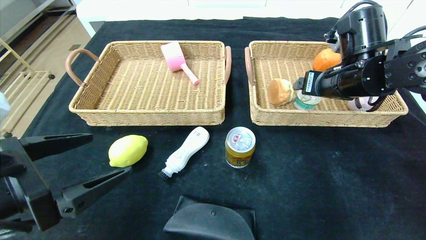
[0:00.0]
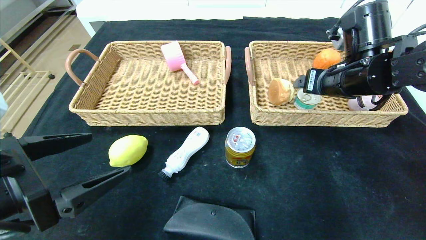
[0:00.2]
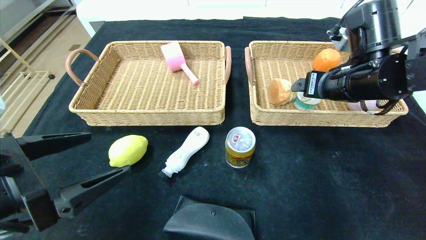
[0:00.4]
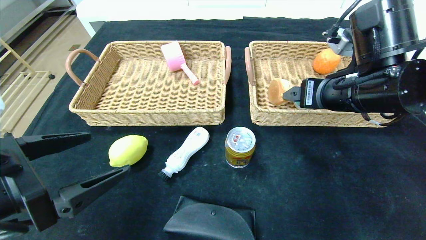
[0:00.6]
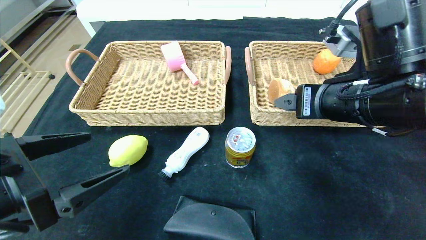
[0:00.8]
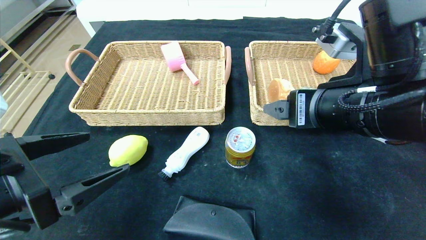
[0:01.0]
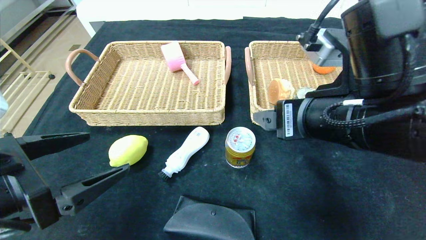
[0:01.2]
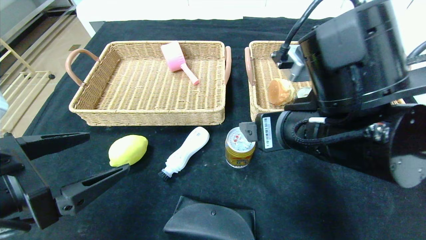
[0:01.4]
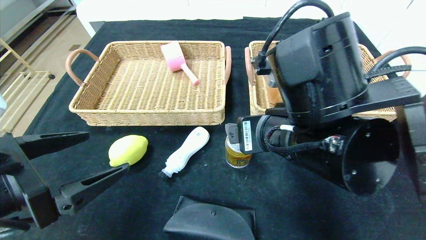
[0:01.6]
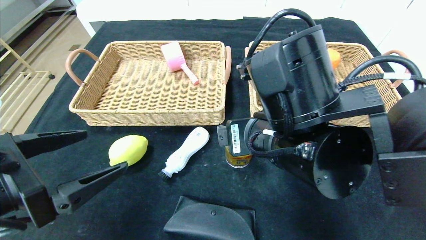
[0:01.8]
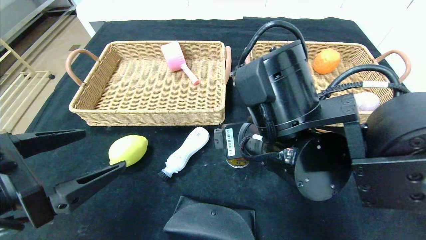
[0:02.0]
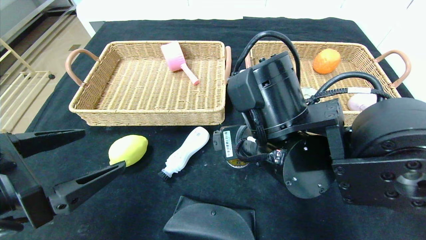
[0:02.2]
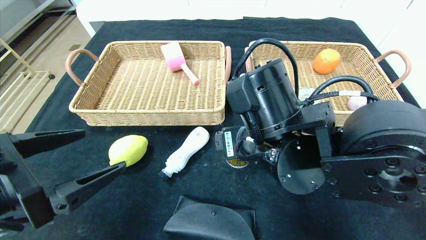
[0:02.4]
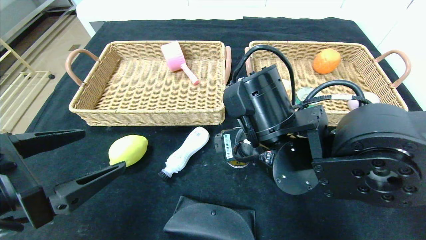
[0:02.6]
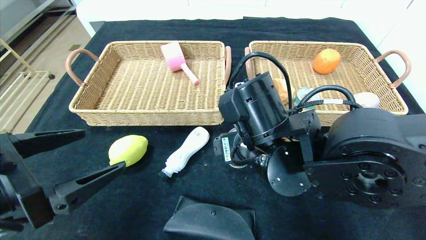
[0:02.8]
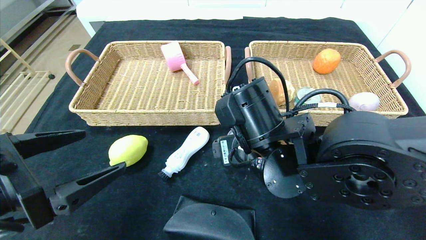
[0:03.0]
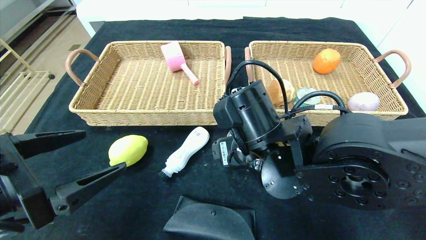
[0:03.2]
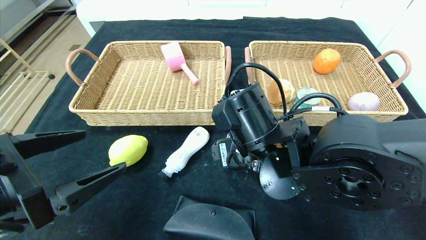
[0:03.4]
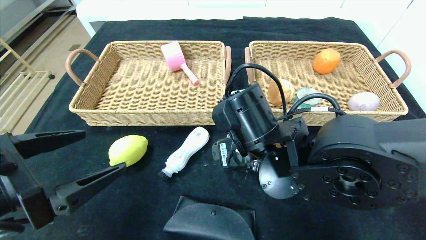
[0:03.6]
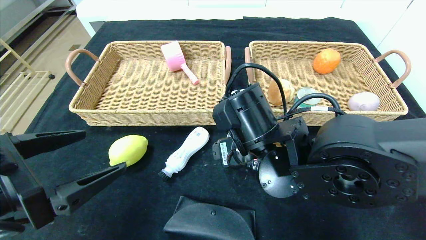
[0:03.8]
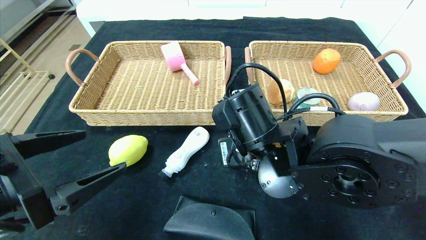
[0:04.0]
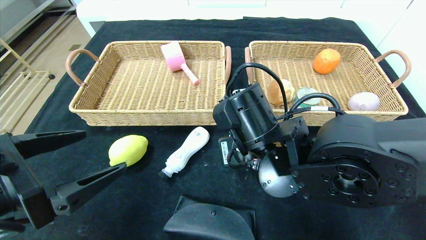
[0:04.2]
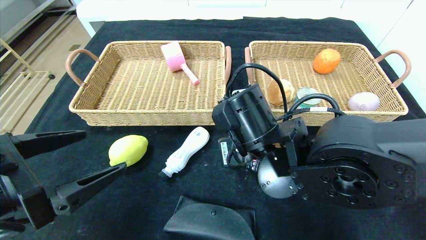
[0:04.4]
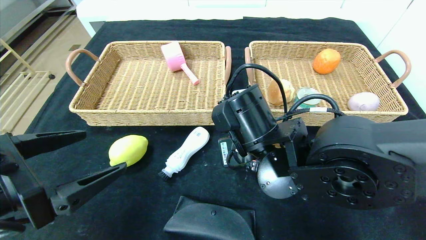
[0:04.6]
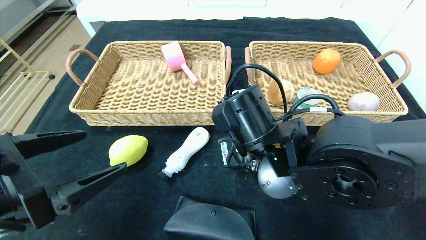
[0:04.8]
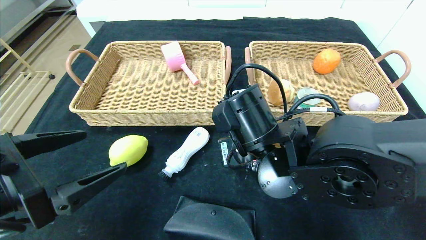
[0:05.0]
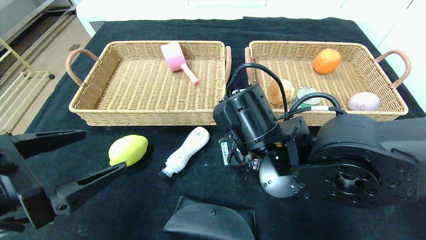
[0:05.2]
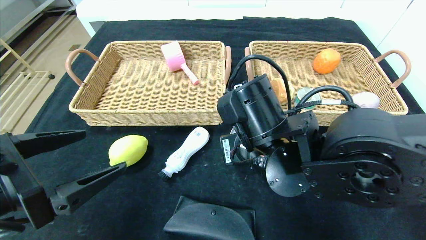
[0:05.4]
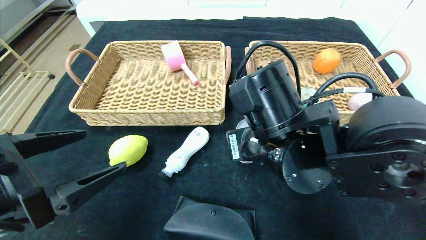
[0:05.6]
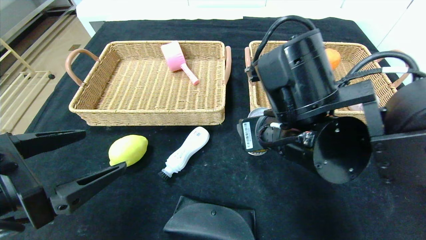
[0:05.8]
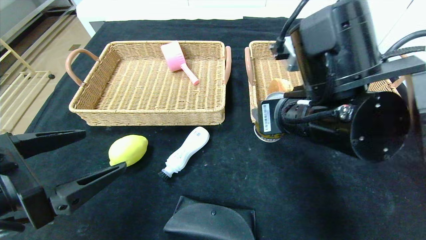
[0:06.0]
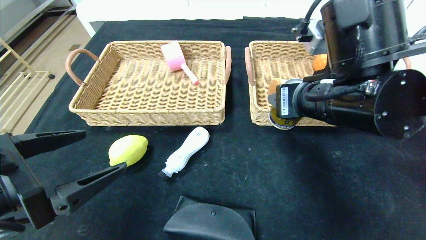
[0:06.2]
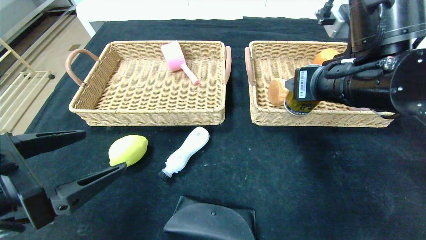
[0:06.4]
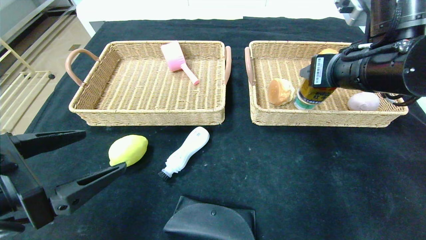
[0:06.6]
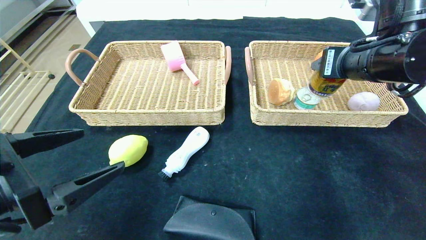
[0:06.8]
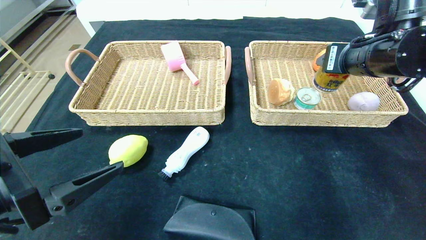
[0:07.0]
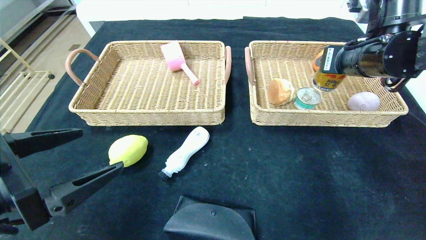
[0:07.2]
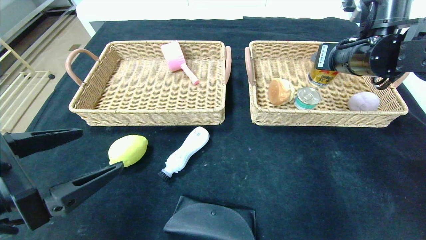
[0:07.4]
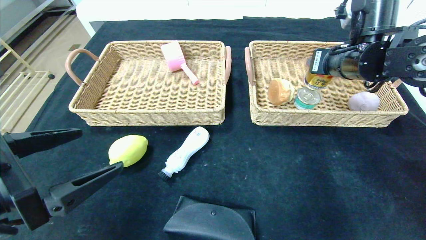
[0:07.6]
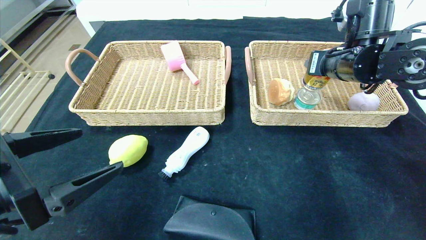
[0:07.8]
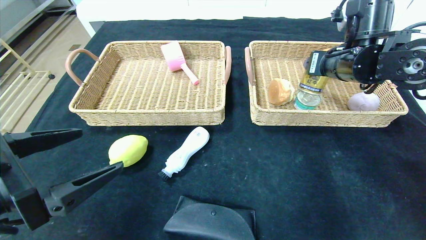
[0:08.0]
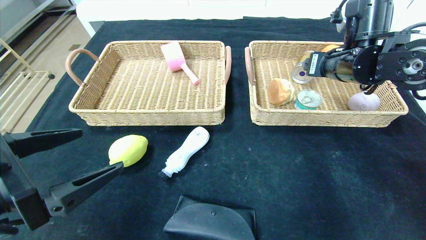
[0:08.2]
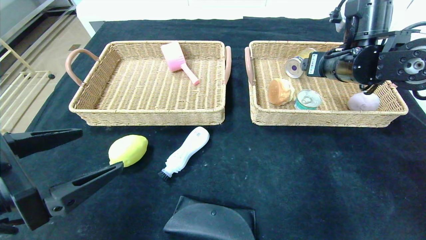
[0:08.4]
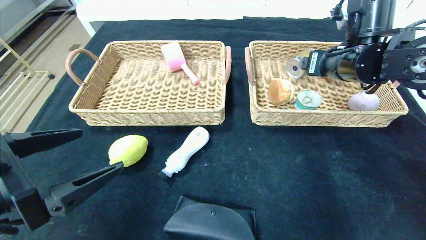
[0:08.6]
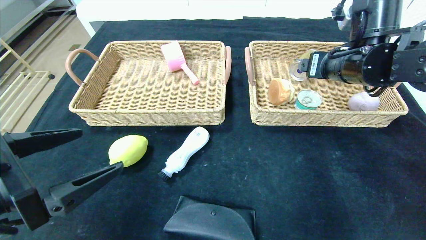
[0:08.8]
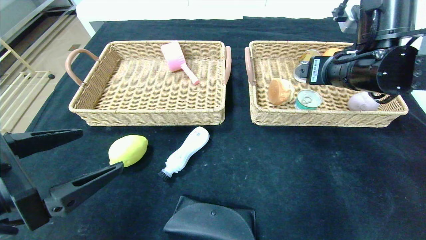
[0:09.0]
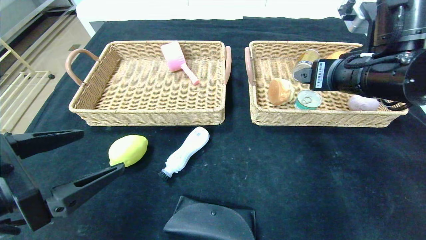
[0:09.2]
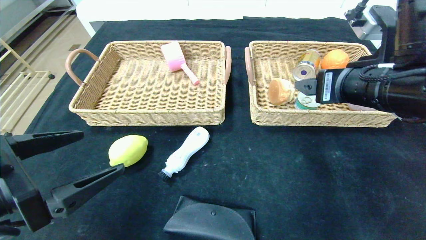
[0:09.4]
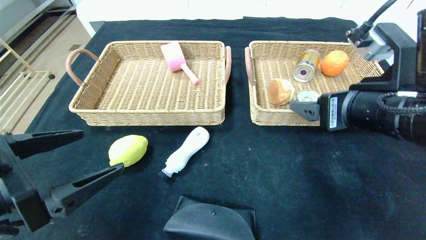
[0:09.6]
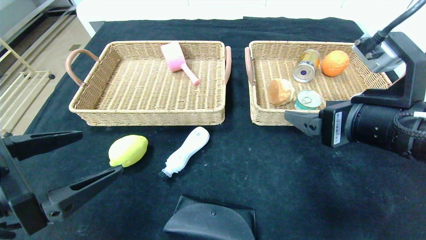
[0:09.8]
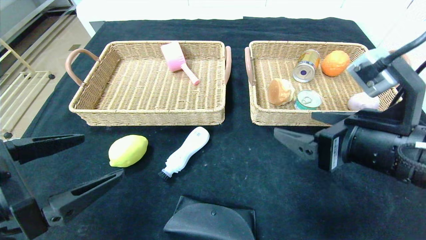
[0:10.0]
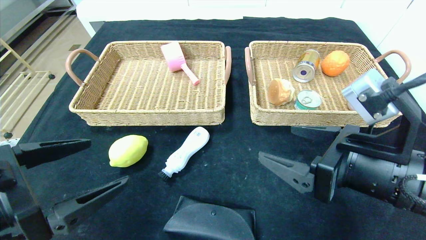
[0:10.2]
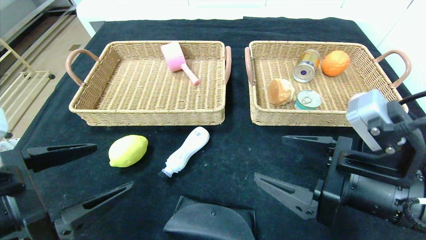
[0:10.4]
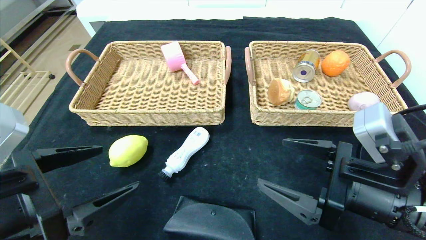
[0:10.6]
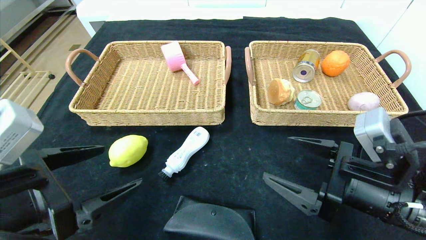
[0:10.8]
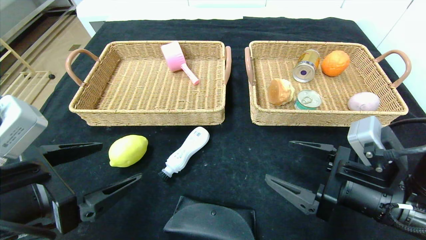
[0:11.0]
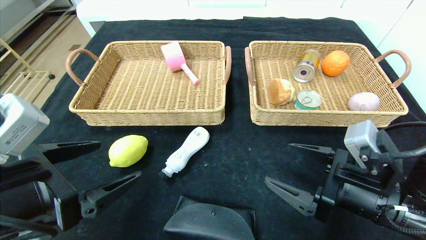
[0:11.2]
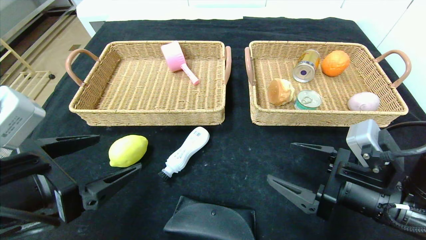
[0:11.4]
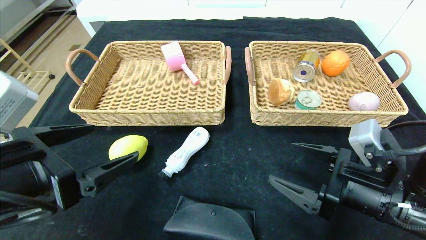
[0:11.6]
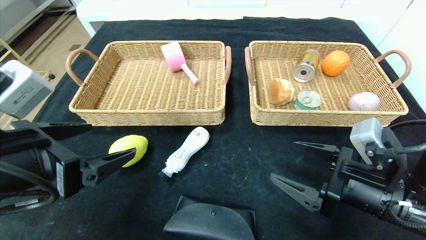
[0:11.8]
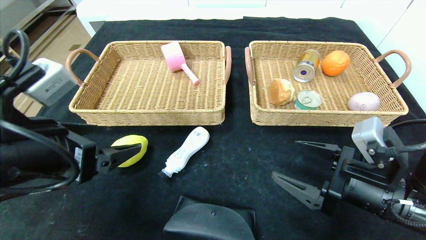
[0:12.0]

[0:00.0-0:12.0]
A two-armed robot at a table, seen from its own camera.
Step, 0:00.0 to 0:08.2: Grasp the Red Bull and put it in the right basket.
0:00.0 to 0:01.6: The right gripper goes about 20 cm backward and to the left.
0:01.6 to 0:03.0: The right gripper changes place by roughly 5 cm.
0:03.0 to 0:04.4: The right gripper closes up.
0:04.4 to 0:06.0: The right gripper shifts roughly 10 cm upward and to the right.
0:06.0 to 0:07.6: The right gripper moves forward and to the right, roughly 20 cm.
0:07.6 to 0:09.0: The right gripper goes roughly 5 cm backward, and opens its fingers.
0:09.0 to 0:10.4: The right gripper is displaced backward and downward by approximately 15 cm.
0:10.4 to 0:12.0: The right gripper changes place by roughly 5 cm; the left gripper moves forward, roughly 5 cm.

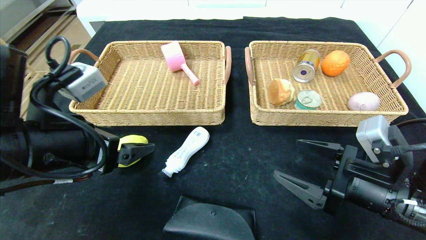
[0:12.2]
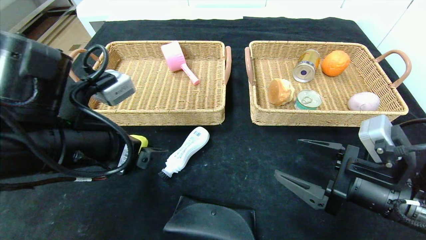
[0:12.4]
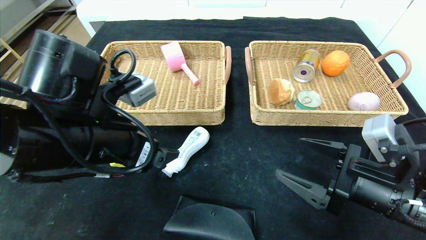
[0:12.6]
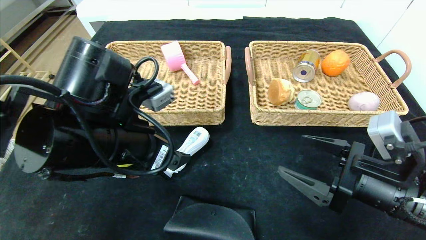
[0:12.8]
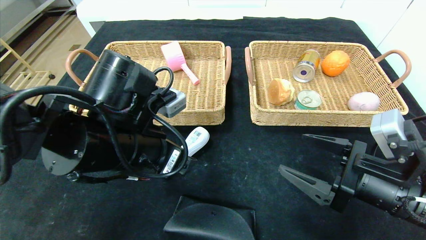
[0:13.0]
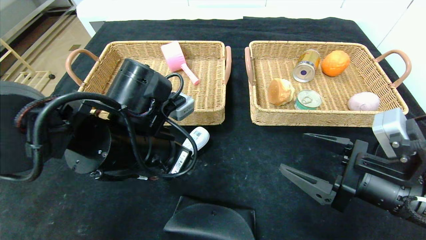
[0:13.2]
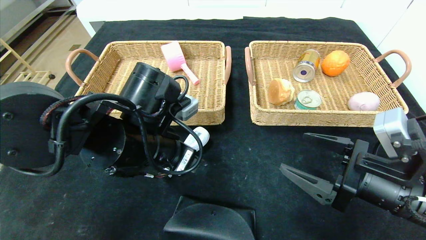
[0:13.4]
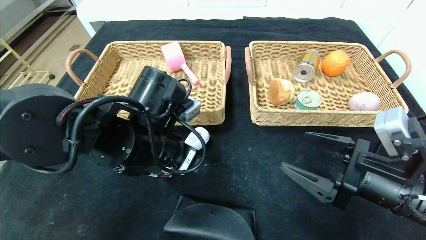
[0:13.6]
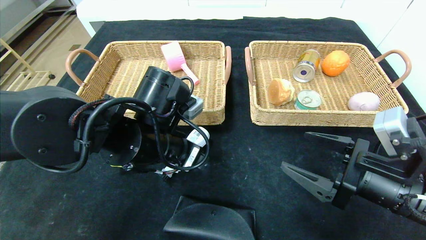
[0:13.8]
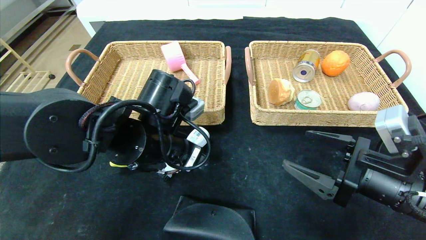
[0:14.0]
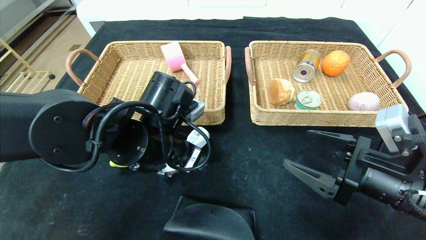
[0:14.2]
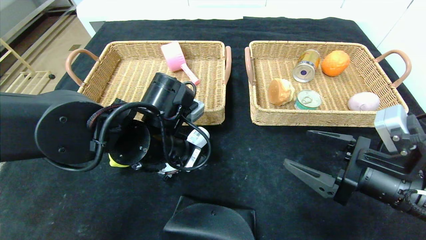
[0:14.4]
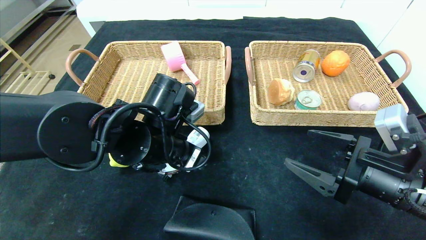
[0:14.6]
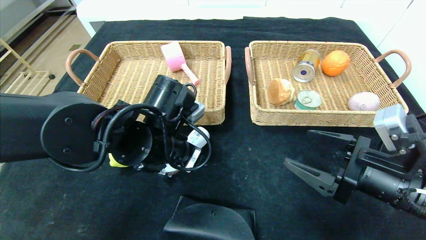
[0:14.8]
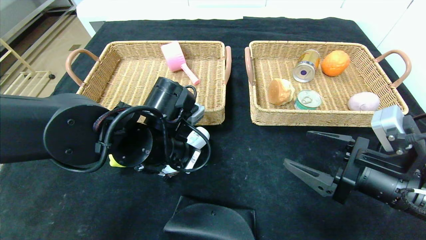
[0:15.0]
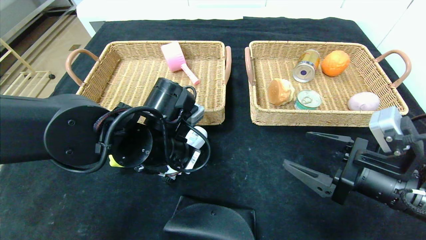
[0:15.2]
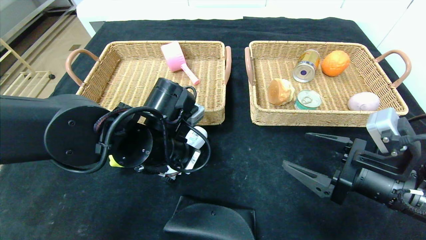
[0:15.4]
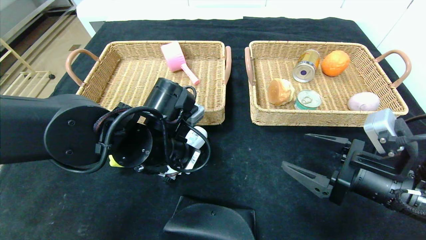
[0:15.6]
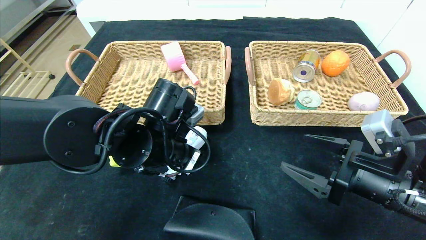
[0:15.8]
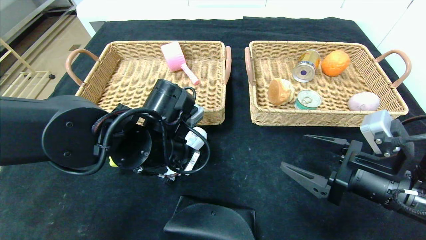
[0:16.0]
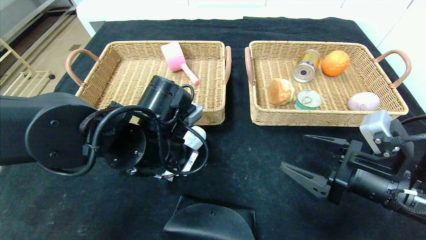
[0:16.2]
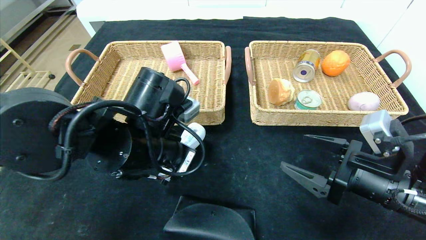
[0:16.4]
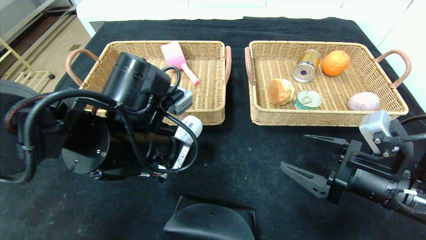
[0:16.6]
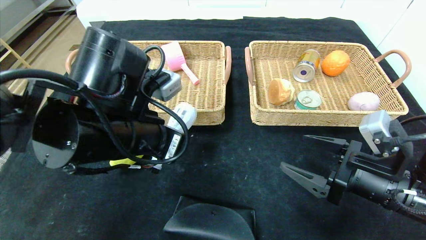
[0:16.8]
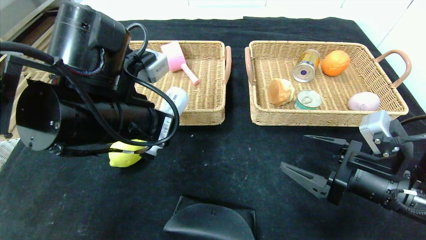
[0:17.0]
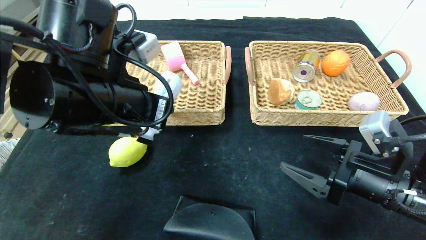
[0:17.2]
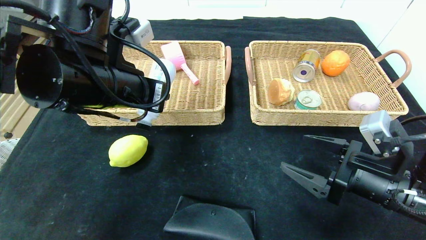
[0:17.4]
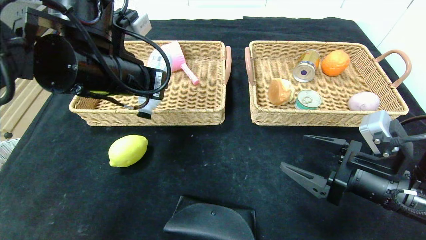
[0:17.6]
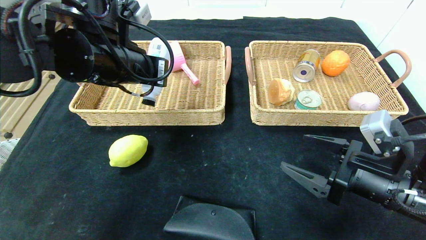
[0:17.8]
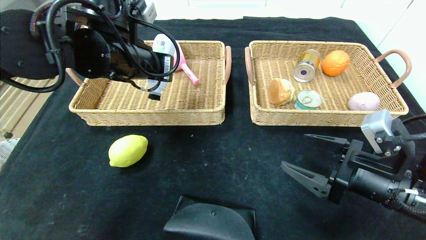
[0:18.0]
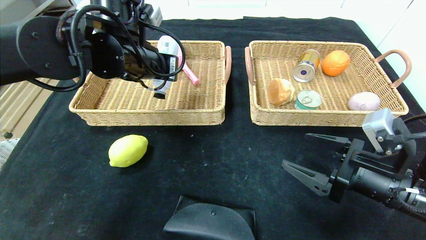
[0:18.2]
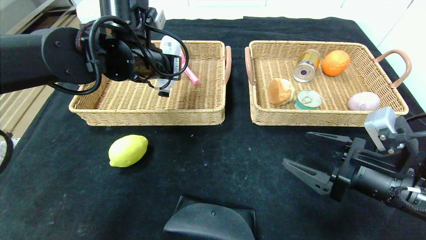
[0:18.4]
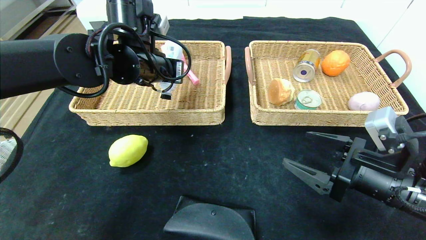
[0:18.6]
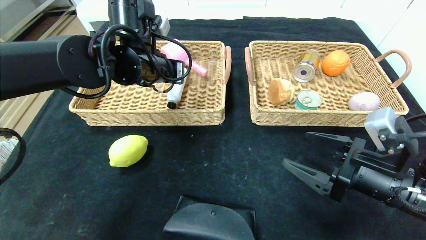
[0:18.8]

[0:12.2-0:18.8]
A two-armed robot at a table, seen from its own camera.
0:12.2 to 0:13.8: The left gripper heads to the right and forward, covering some 10 cm.
0:13.8 to 0:15.4: The left gripper closes up.
0:15.4 to 0:17.2: The left gripper goes approximately 10 cm upward.
0:17.2 to 0:18.8: The left gripper shifts roughly 15 cm forward.
